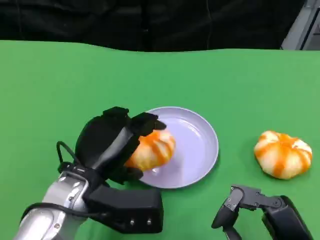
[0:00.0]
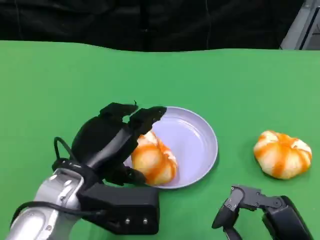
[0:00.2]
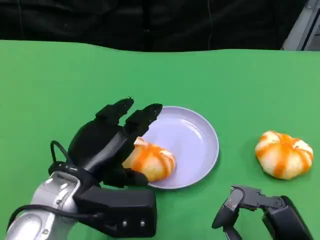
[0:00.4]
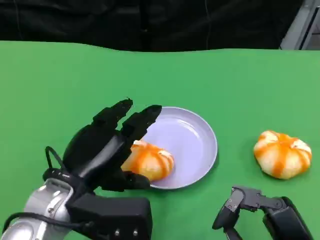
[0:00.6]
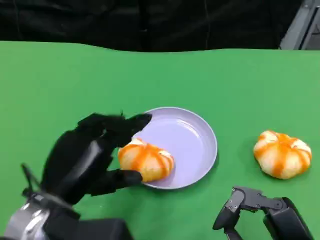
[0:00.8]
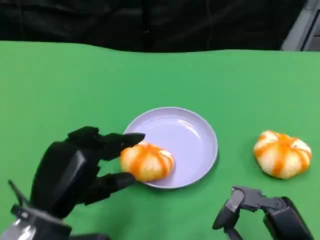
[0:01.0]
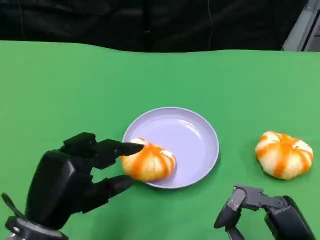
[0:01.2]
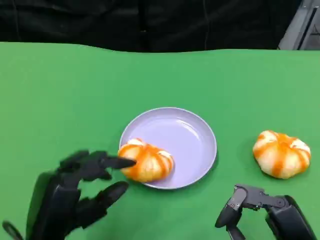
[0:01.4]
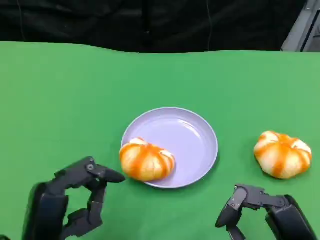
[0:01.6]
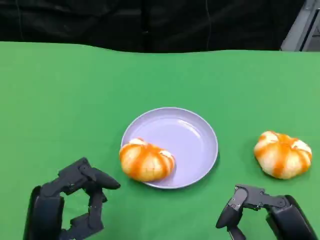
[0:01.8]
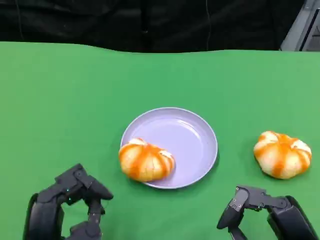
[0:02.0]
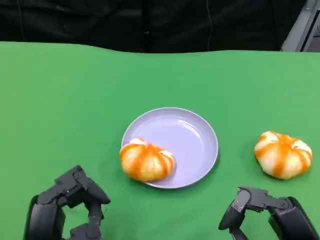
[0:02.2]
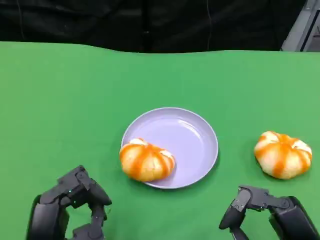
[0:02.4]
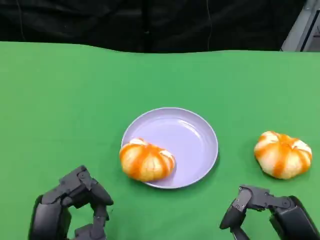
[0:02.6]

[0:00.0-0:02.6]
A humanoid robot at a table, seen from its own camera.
Task of the whole recording: Grasp the bread from the table and place it into the plate.
0:00.0 to 0:01.2: The left hand moves backward and to the left, roughly 10 cm.
0:01.2 to 0:02.6: The left hand changes place by some 5 cm.

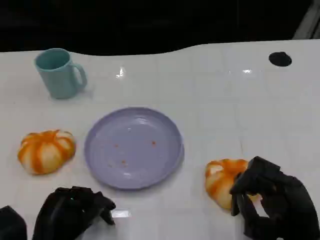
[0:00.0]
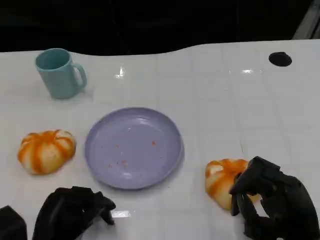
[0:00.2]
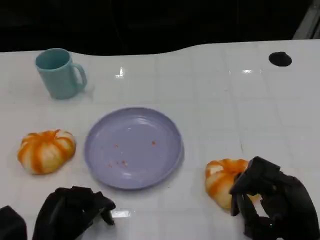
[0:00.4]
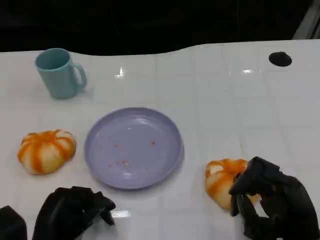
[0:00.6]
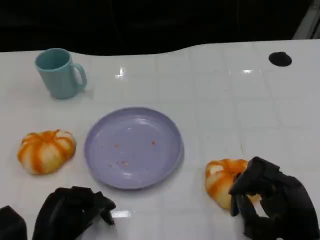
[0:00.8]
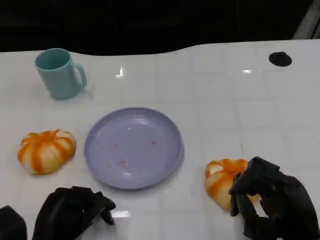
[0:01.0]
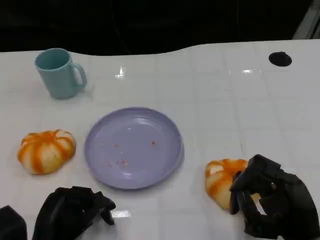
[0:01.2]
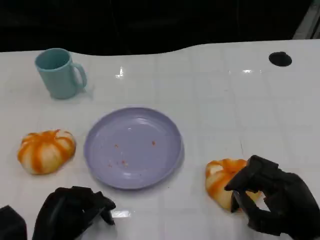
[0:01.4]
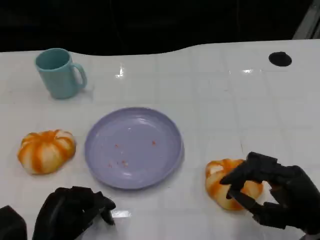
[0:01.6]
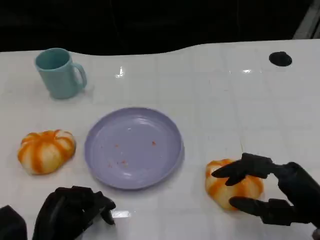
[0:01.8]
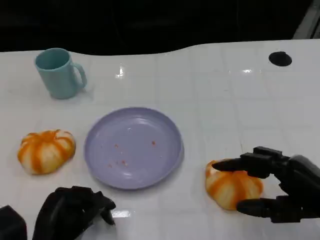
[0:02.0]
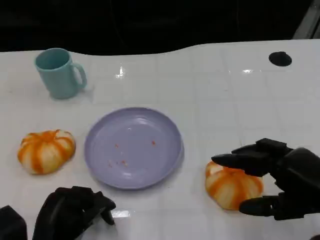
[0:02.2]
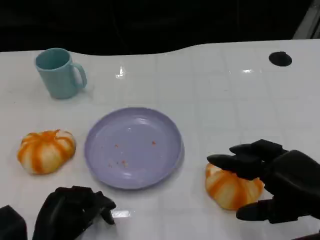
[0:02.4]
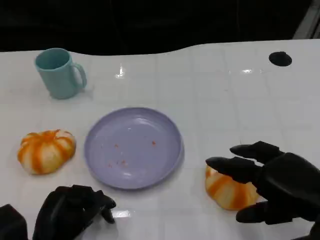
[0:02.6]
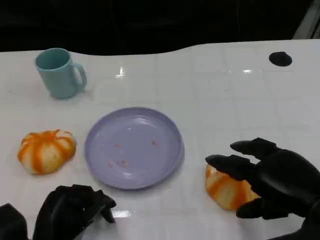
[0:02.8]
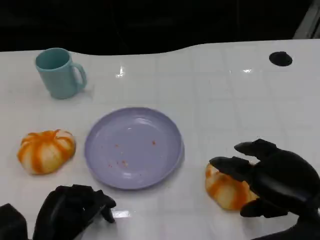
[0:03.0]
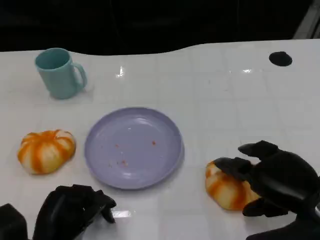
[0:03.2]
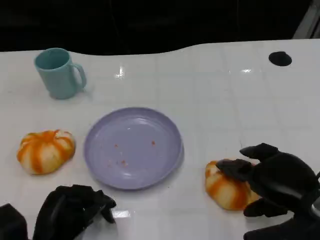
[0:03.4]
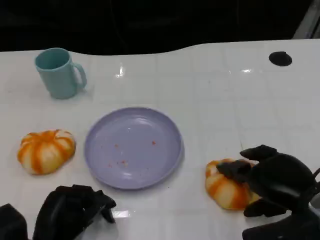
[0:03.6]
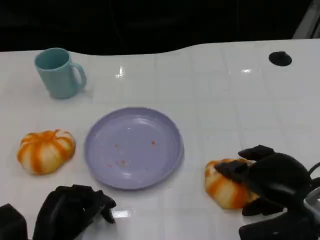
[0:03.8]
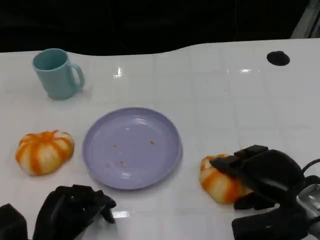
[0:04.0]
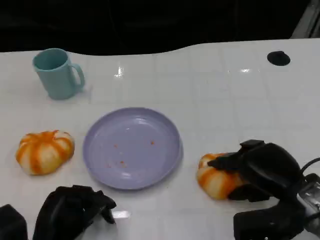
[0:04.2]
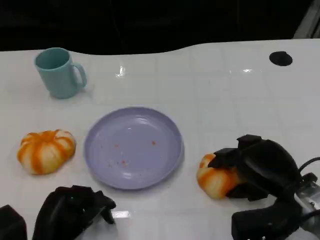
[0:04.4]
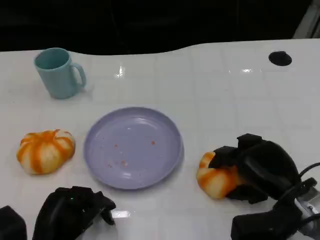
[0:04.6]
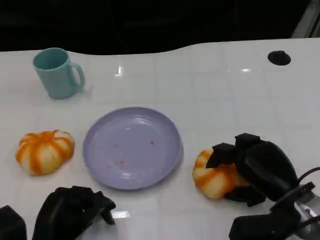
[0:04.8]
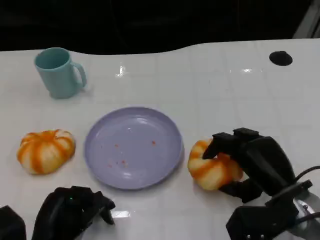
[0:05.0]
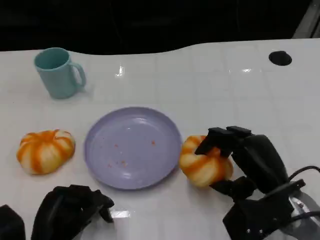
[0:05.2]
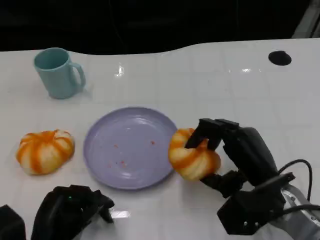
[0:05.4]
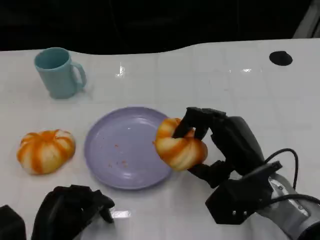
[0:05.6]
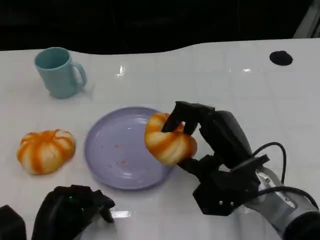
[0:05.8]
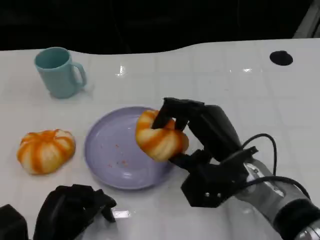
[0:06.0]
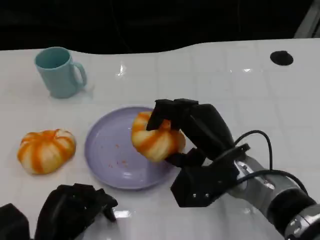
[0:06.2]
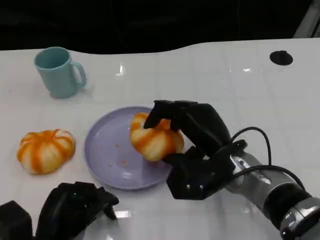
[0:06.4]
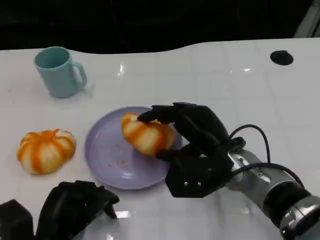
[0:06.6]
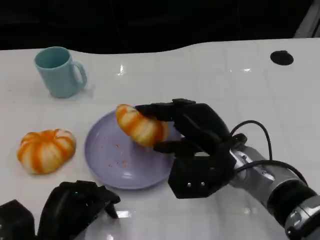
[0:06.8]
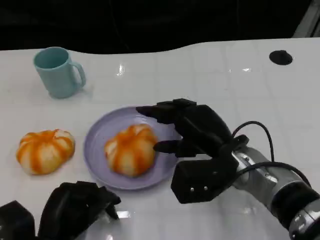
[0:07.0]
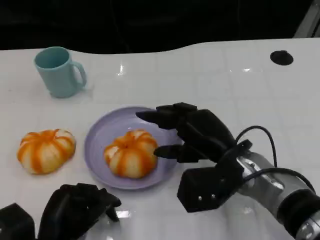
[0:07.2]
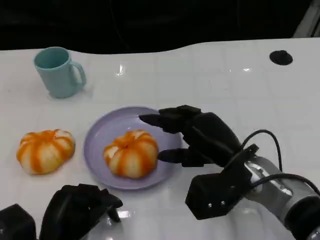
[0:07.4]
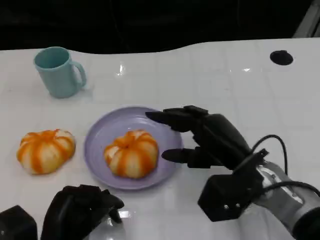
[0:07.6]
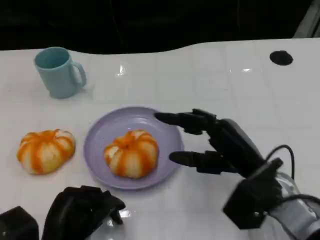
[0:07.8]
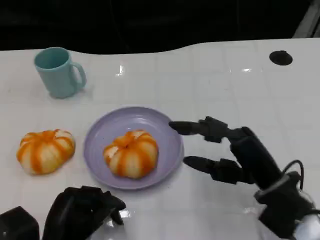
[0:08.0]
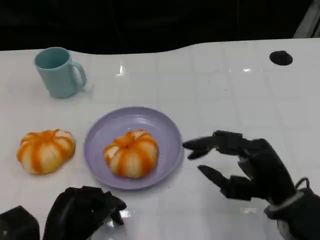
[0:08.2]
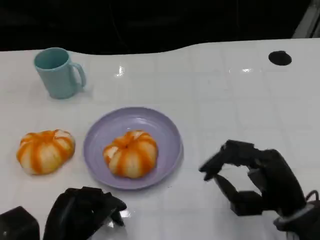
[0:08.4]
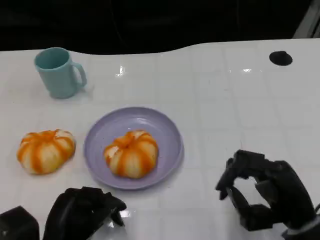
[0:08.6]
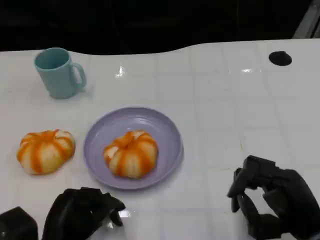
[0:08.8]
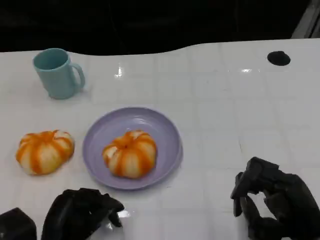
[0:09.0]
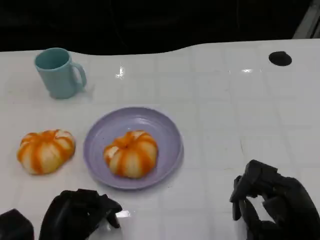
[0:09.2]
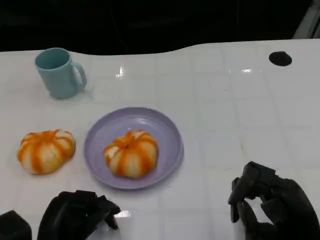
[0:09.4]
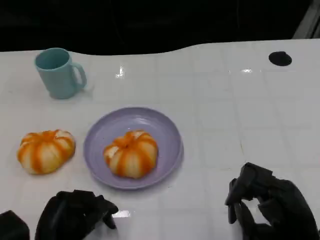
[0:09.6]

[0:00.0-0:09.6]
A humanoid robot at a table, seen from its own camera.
Task of the whole recording: Grasp the bread from the table and place it into the plate.
0:03.2 to 0:04.8: The right hand travels downward by about 5 cm.
0:04.8 to 0:06.4: The right hand heads to the left, covering approximately 10 cm.
0:06.4 to 0:08.0: The right hand is displaced to the right and backward by some 10 cm.
0:08.0 to 0:09.6: The right hand shifts some 5 cm backward.

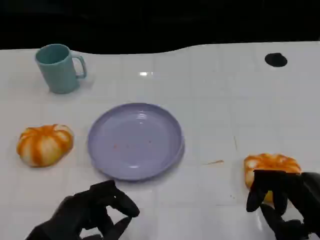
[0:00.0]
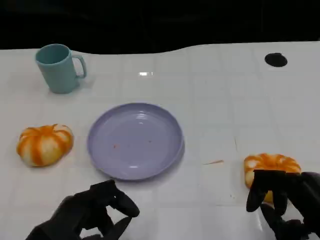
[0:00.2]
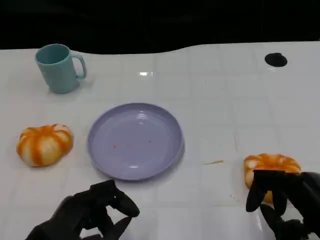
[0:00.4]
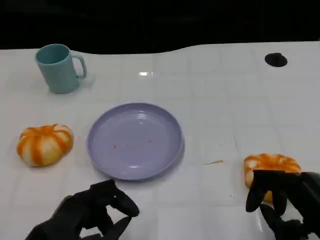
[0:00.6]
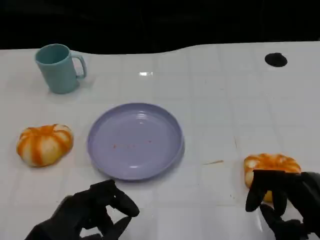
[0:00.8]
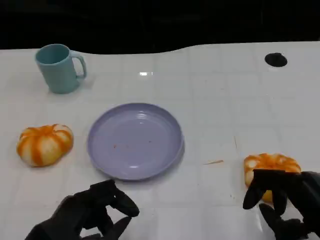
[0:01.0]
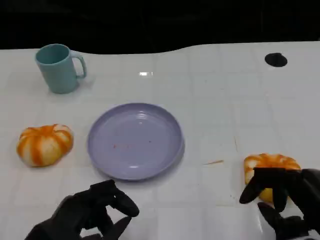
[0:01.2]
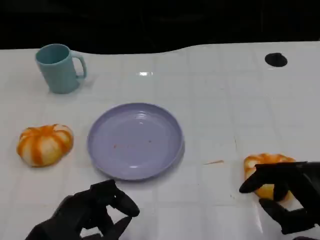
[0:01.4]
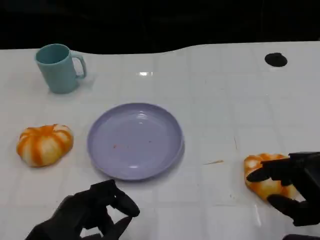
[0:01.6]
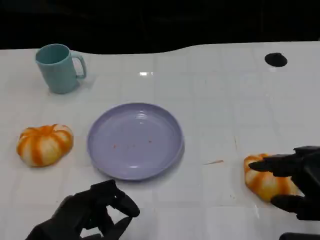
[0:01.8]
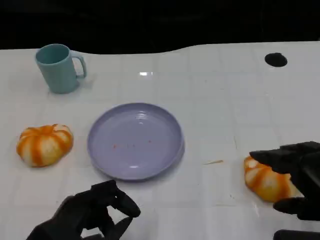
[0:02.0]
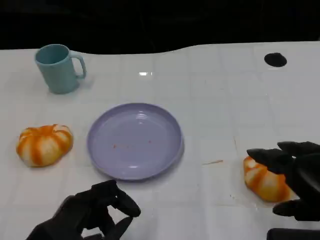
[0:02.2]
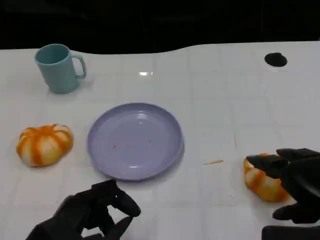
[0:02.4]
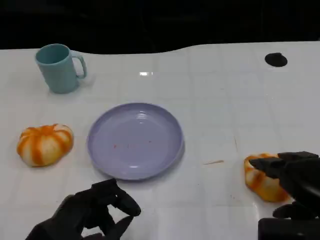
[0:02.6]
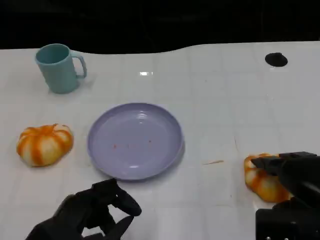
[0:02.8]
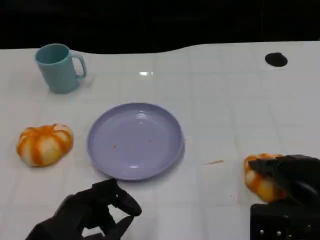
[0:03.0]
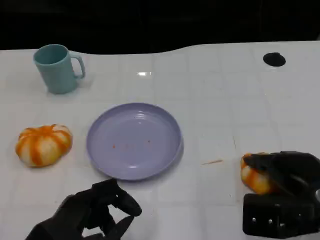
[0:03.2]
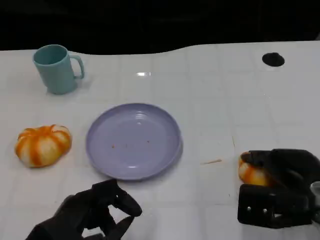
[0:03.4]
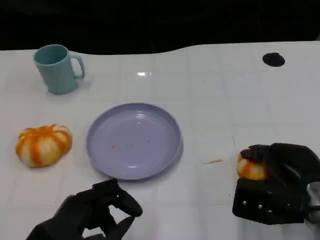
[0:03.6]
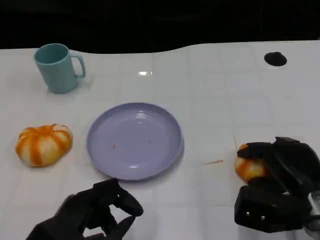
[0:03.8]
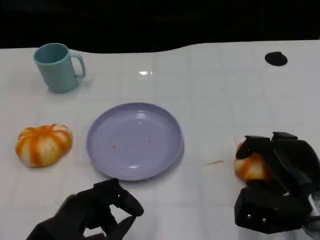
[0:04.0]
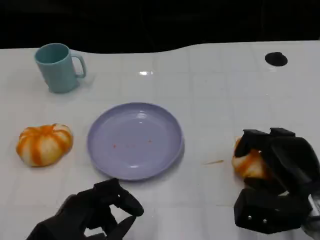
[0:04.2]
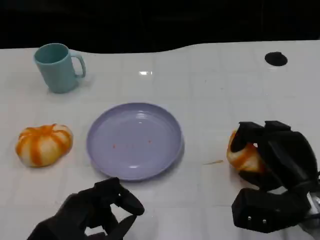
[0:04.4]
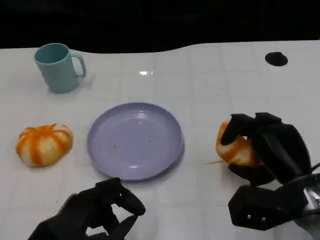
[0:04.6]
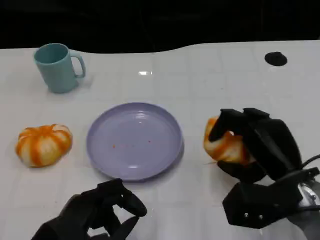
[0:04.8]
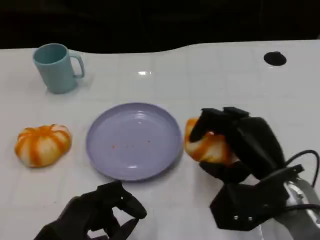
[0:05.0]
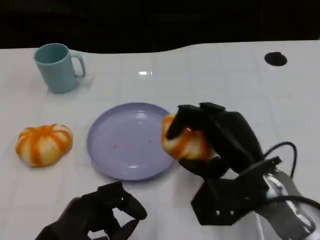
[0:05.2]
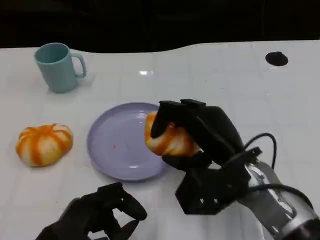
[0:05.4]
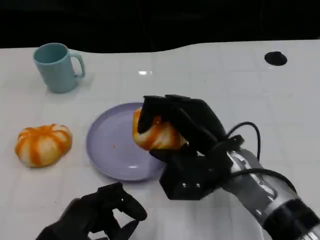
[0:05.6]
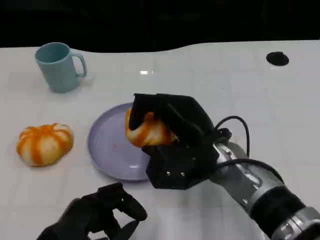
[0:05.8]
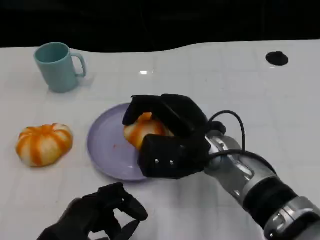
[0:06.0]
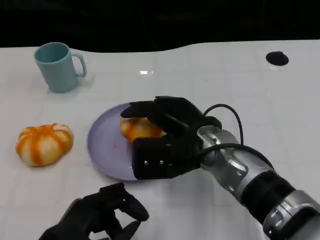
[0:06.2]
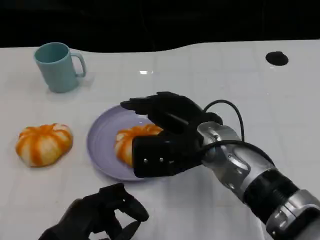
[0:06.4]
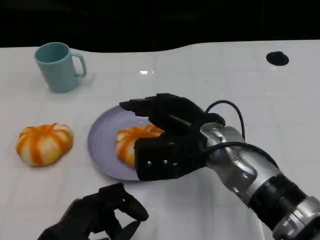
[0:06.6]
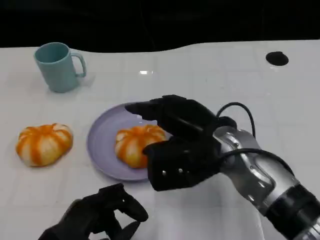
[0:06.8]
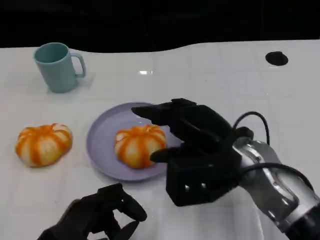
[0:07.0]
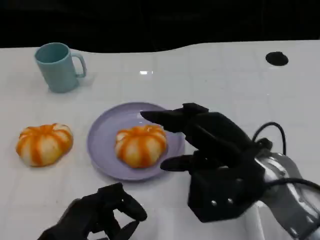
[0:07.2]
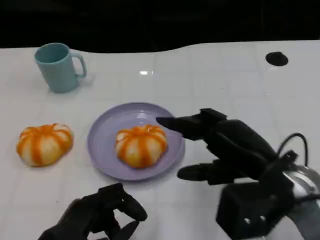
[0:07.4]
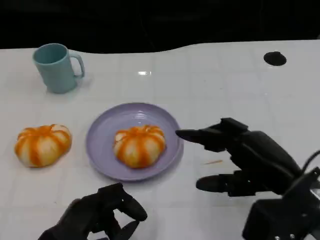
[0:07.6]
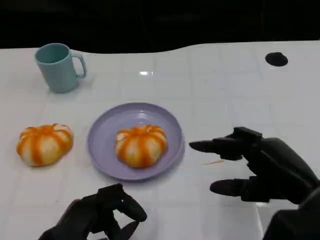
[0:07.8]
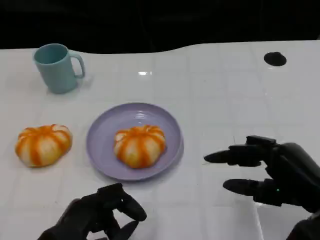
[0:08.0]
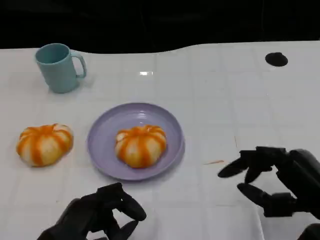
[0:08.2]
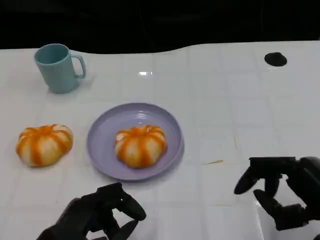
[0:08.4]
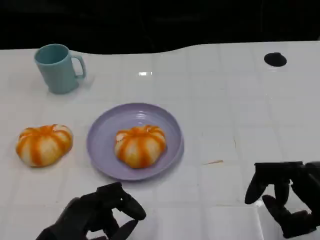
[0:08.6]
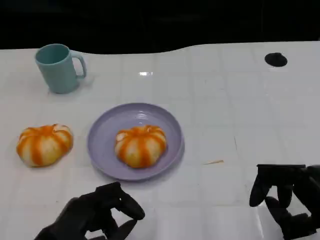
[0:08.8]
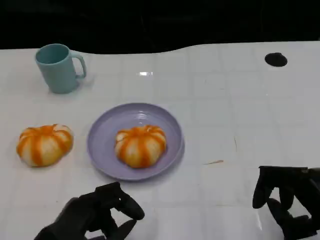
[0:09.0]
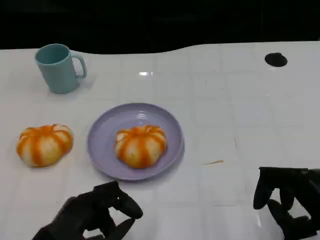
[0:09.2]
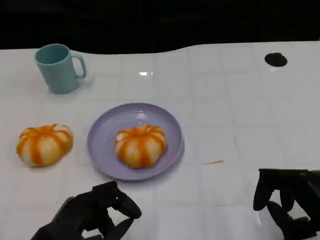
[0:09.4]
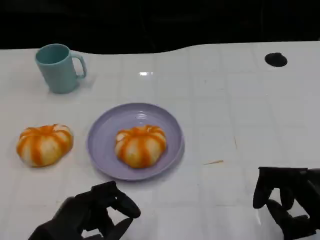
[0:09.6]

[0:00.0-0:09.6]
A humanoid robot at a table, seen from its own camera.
Task of the whole recording: Grasp the bread from the table and place it into the plate.
0:01.6 to 0:03.2: The right hand travels forward by about 5 cm.
0:03.2 to 0:04.8: The right hand moves roughly 5 cm.
0:04.8 to 0:06.4: The right hand shifts roughly 15 cm to the left and forward.
0:06.4 to 0:08.0: The right hand goes roughly 20 cm to the right and backward.
0:08.0 to 0:09.6: The hands stay close to where they were, moving slightly.
